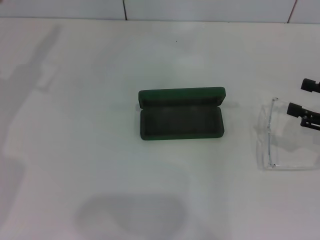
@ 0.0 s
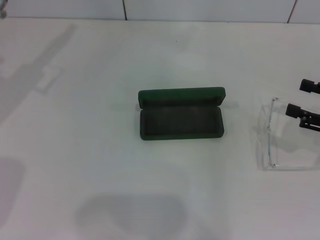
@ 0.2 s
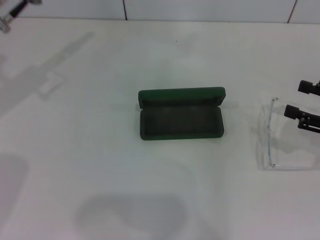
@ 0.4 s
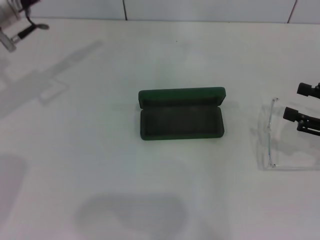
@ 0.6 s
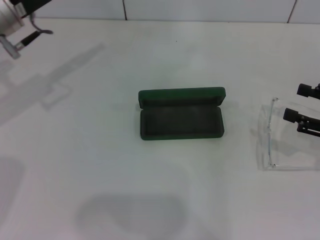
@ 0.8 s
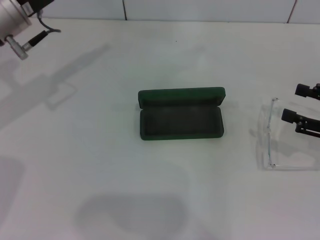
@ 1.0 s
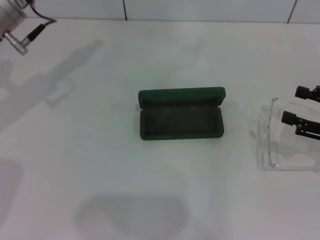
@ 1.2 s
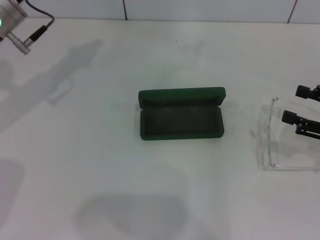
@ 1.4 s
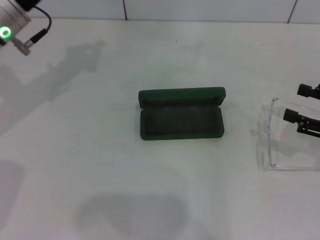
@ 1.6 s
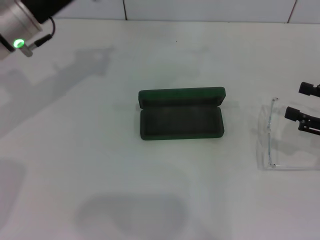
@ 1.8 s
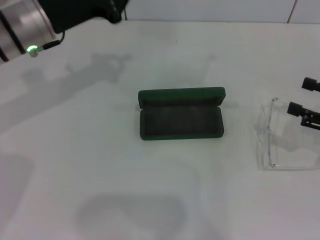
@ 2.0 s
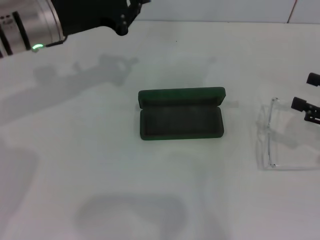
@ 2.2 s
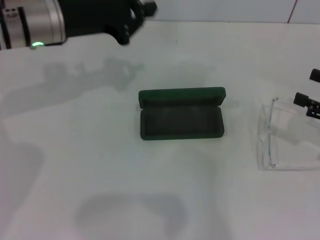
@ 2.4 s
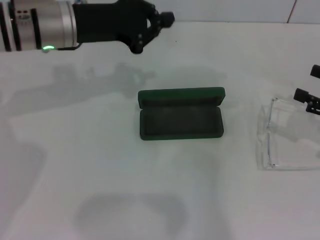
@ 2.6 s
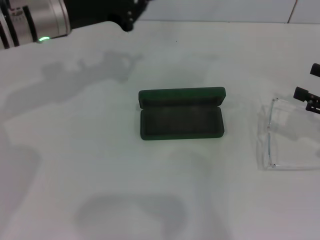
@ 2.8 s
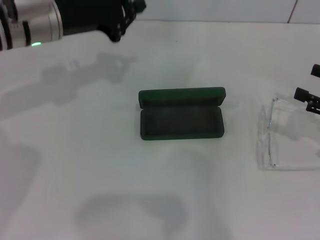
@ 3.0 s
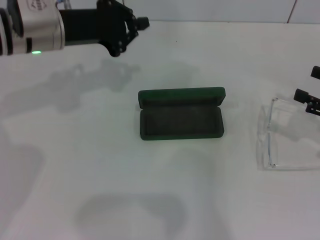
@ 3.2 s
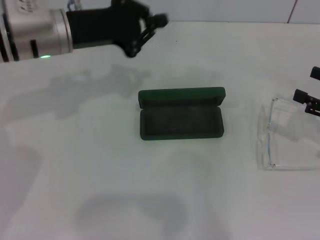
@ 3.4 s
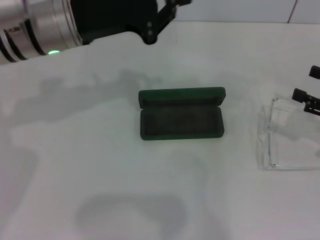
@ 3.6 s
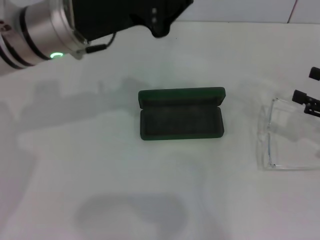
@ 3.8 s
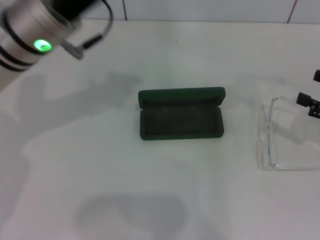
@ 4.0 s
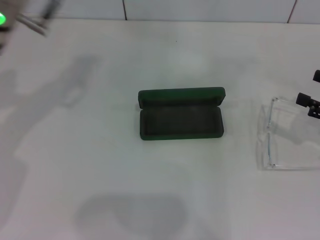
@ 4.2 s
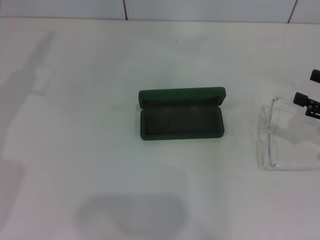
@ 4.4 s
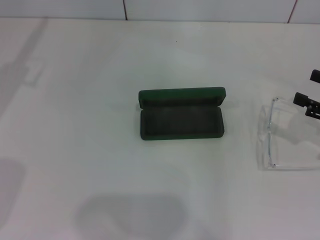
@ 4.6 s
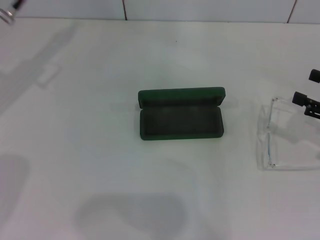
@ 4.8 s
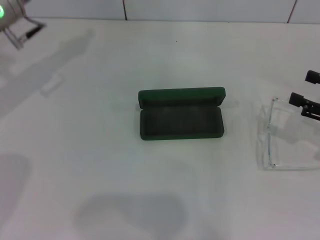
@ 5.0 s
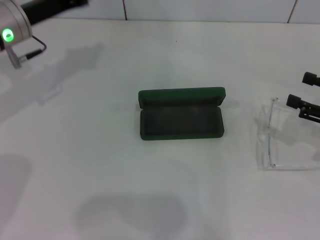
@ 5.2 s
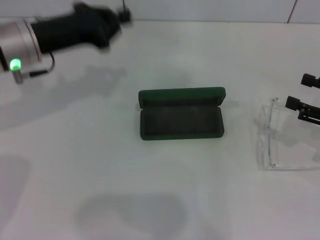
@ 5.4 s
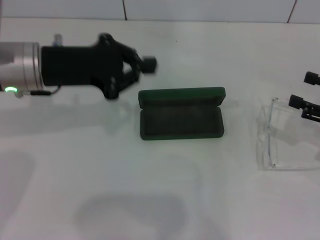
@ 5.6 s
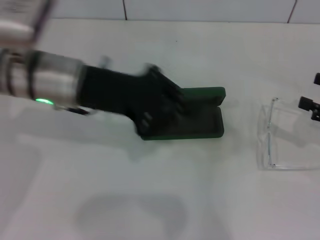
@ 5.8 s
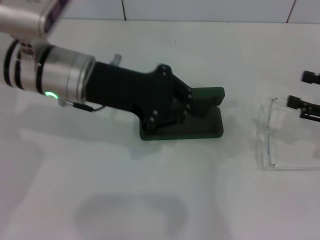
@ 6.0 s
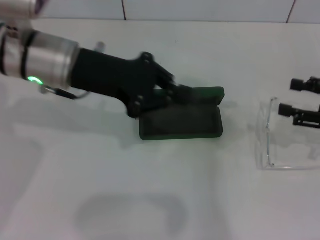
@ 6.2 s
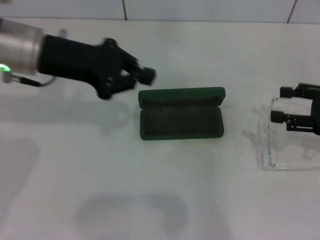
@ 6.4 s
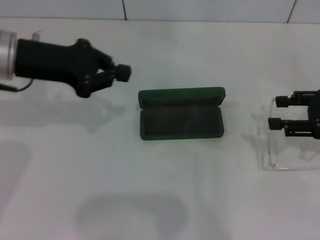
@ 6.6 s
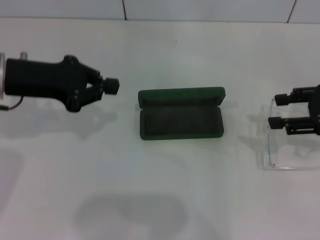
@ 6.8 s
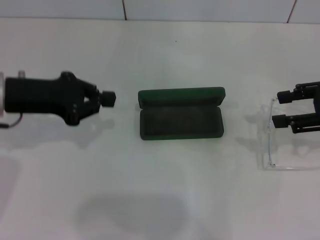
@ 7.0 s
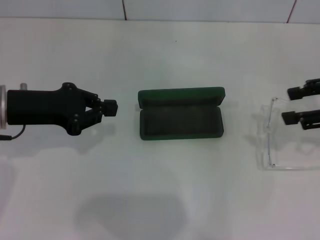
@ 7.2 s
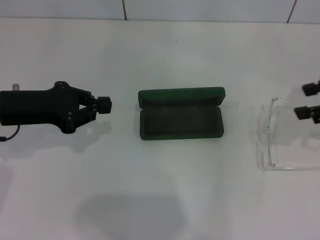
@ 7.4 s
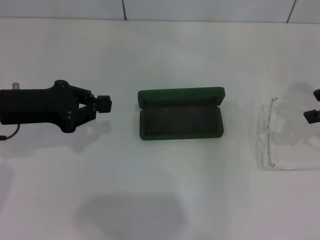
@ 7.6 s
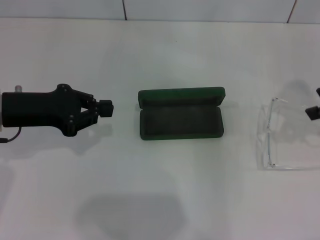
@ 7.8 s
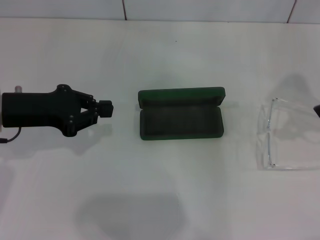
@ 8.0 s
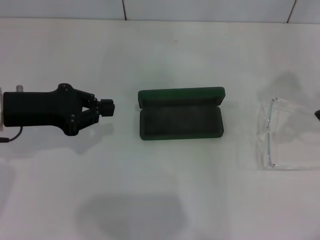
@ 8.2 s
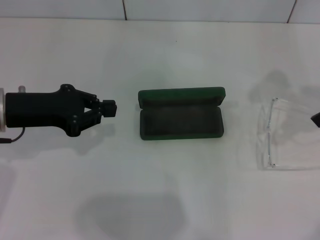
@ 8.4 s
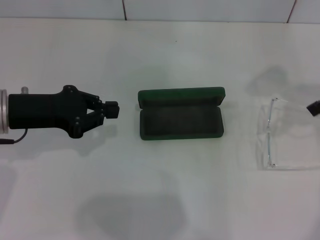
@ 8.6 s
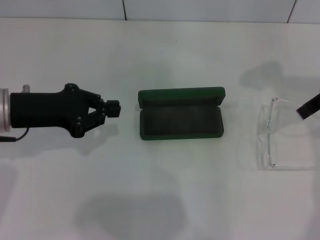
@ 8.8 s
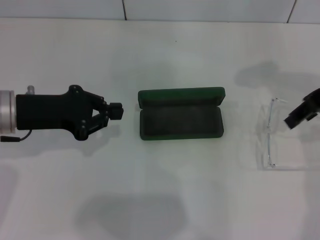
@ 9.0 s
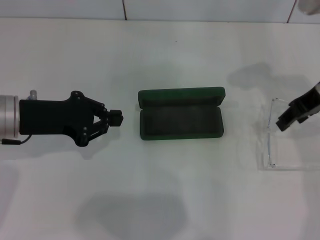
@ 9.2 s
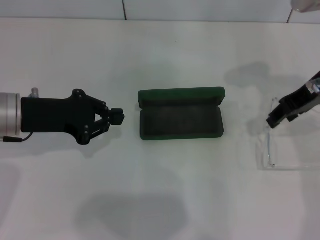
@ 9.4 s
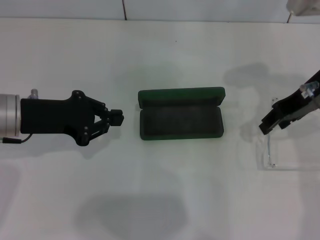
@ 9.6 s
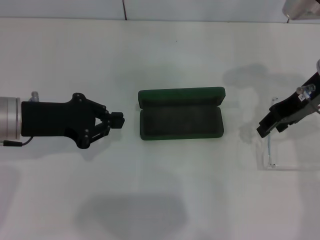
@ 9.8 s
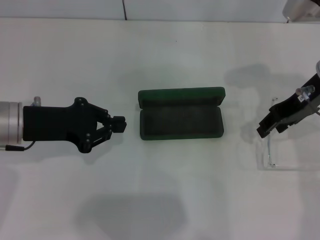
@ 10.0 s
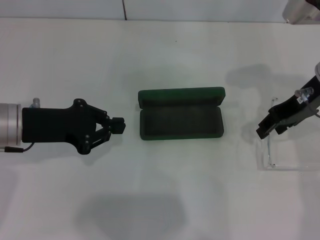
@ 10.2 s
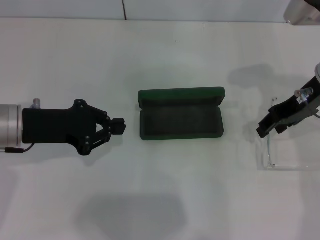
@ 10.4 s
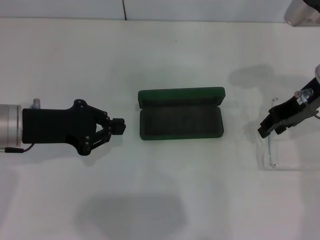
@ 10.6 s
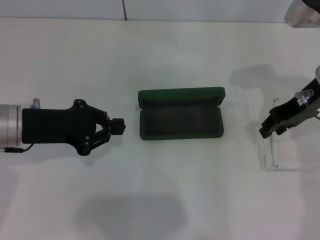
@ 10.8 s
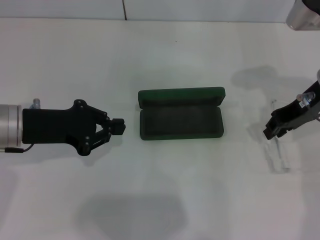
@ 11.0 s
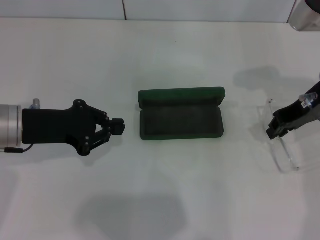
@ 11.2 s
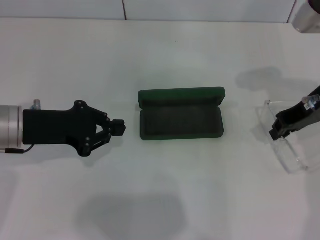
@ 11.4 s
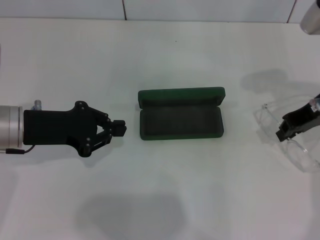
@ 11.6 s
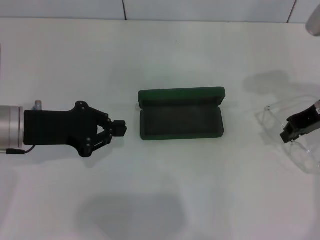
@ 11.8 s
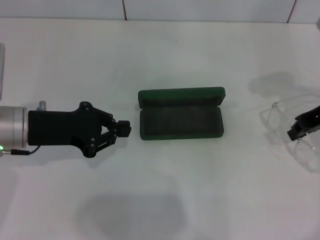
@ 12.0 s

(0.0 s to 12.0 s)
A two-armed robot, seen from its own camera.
Step, 0.0 s - 11.6 s: Grab the eyeglass frame with your right hand.
3.0 s - 4.4 s: The left gripper moves roughly 5 cm.
4.4 s - 6.0 s: The left gripper heads to the right, covering roughly 10 cm.
6.0 s - 7.6 s: The right gripper goes approximately 10 cm upward. The left gripper goes approximately 10 cm to the left.
7.6 s - 9.0 s: The right gripper moves to the left, roughly 10 cm.
9.0 s - 10.4 s: The right gripper is displaced downward by roughly 5 cm.
10.4 s - 12.0 s: The right gripper closes.

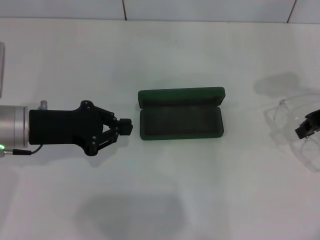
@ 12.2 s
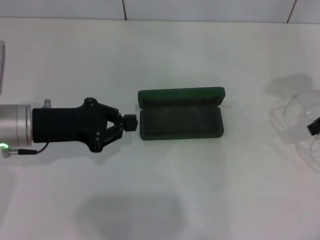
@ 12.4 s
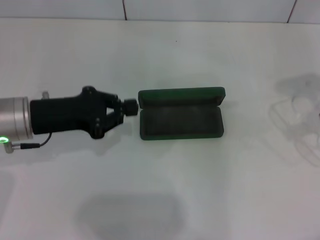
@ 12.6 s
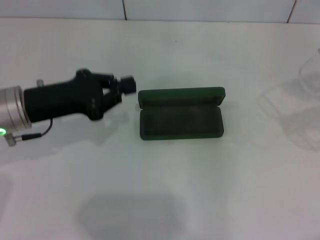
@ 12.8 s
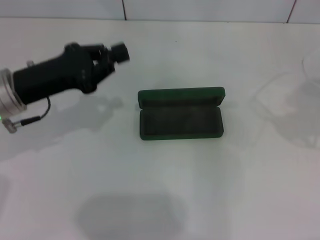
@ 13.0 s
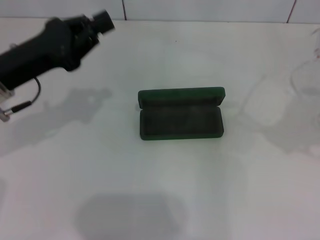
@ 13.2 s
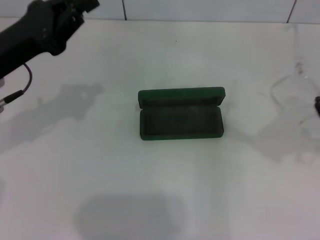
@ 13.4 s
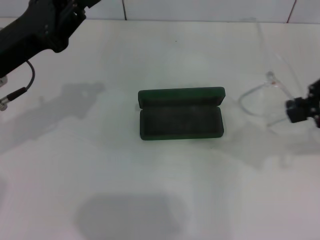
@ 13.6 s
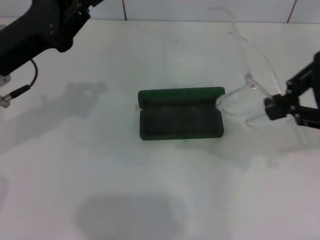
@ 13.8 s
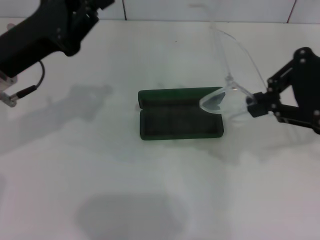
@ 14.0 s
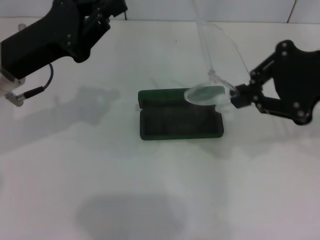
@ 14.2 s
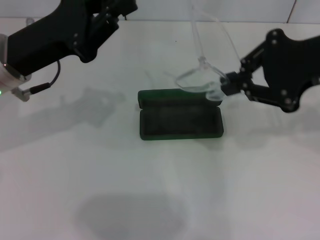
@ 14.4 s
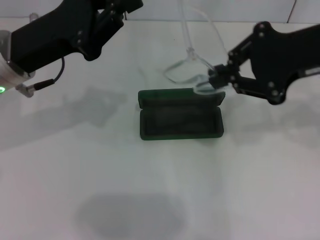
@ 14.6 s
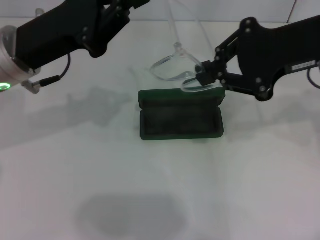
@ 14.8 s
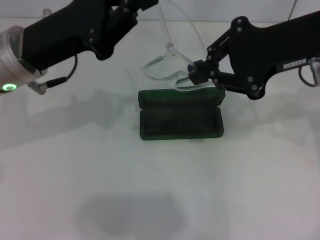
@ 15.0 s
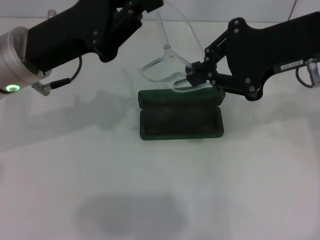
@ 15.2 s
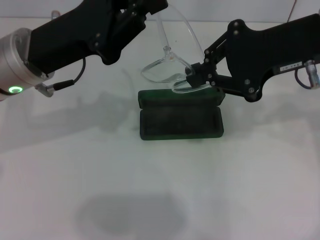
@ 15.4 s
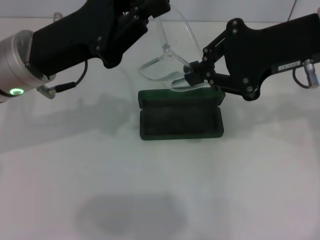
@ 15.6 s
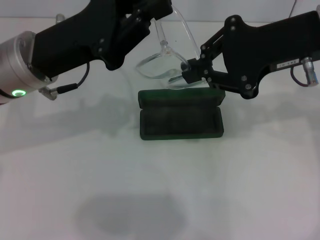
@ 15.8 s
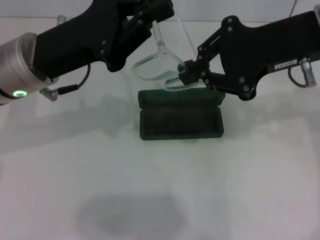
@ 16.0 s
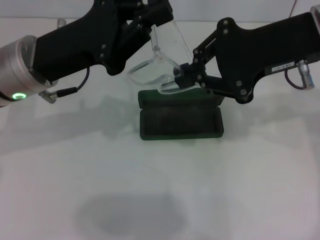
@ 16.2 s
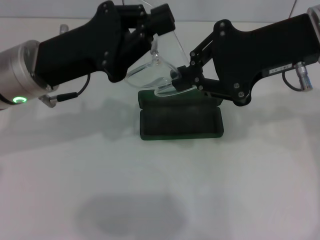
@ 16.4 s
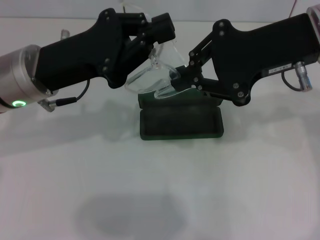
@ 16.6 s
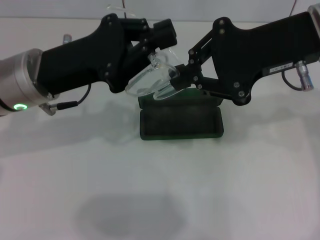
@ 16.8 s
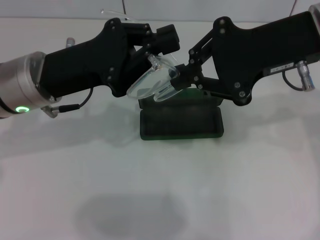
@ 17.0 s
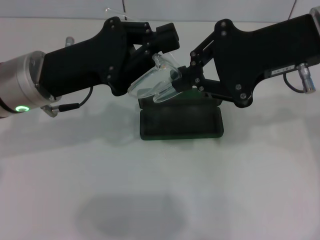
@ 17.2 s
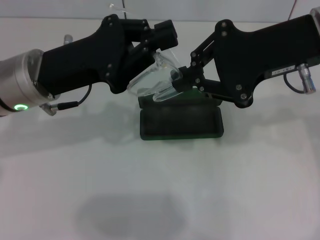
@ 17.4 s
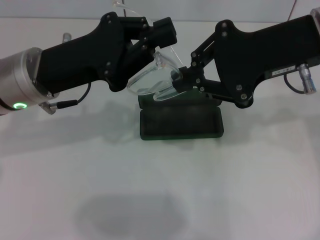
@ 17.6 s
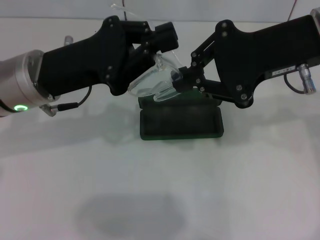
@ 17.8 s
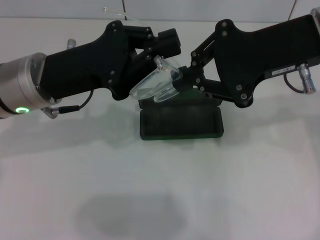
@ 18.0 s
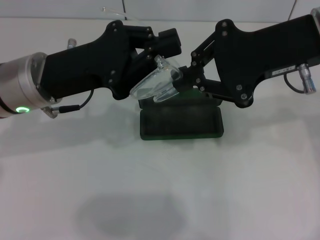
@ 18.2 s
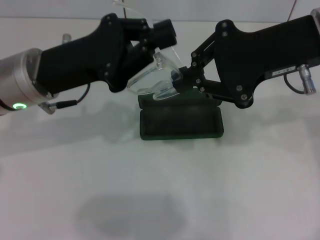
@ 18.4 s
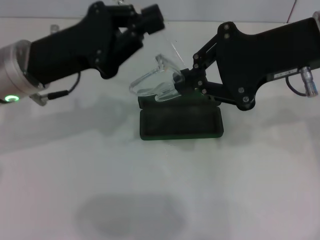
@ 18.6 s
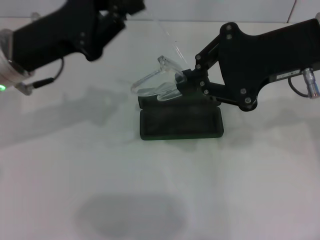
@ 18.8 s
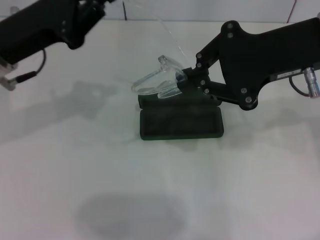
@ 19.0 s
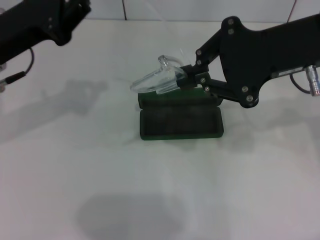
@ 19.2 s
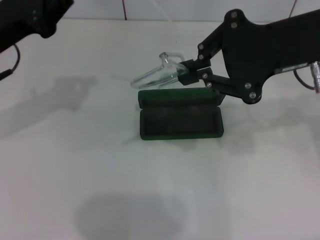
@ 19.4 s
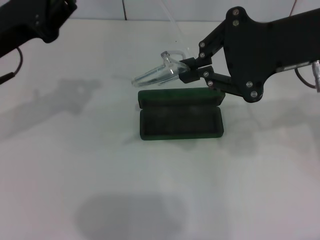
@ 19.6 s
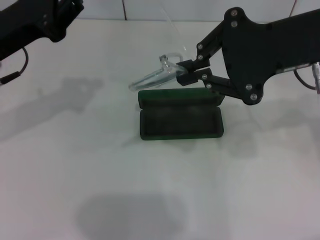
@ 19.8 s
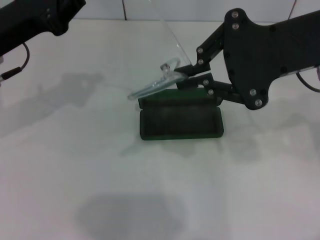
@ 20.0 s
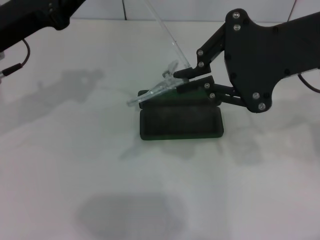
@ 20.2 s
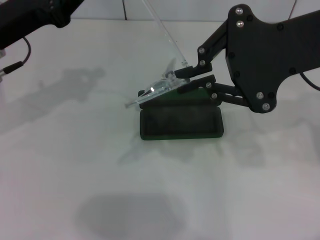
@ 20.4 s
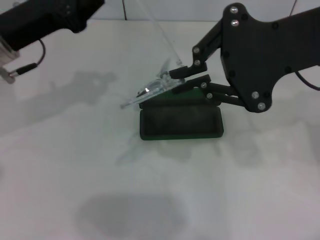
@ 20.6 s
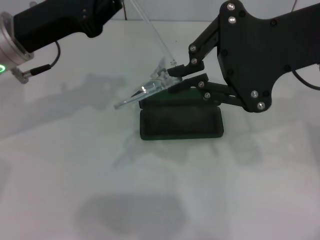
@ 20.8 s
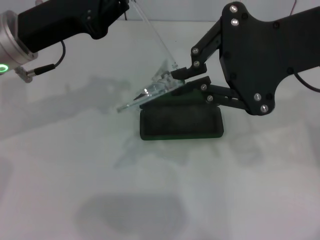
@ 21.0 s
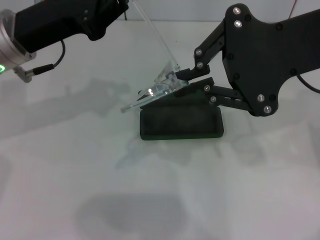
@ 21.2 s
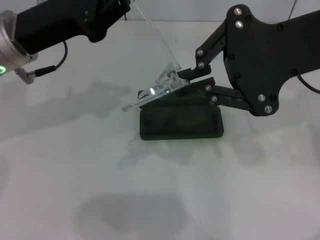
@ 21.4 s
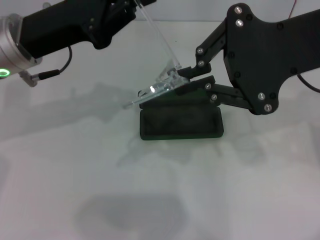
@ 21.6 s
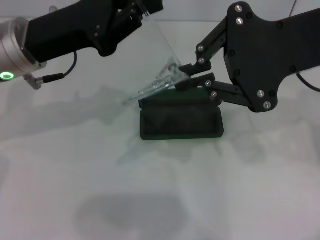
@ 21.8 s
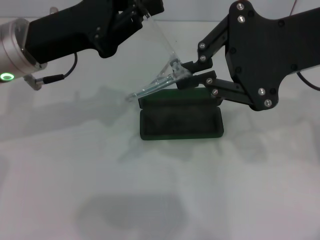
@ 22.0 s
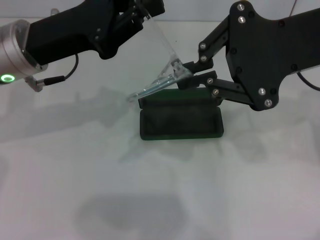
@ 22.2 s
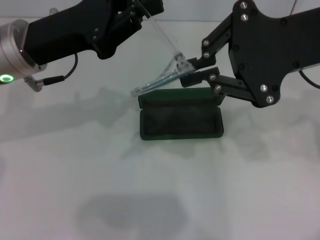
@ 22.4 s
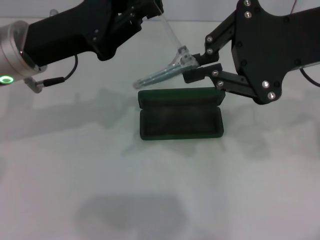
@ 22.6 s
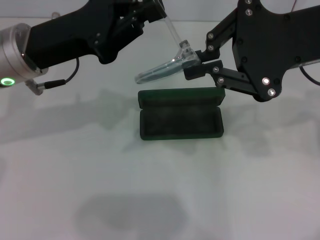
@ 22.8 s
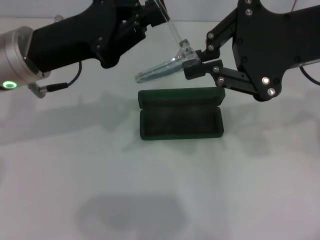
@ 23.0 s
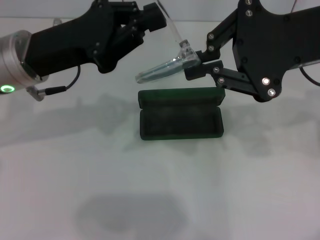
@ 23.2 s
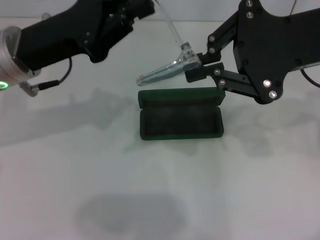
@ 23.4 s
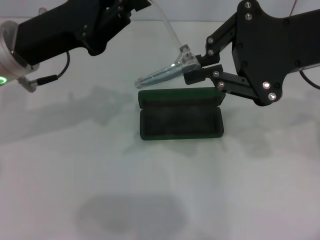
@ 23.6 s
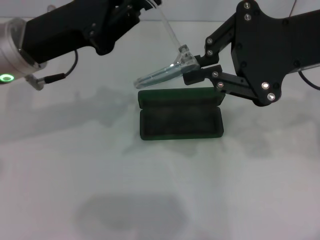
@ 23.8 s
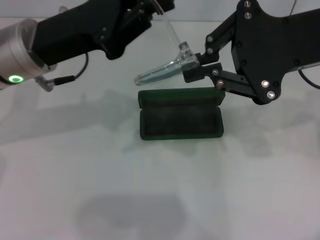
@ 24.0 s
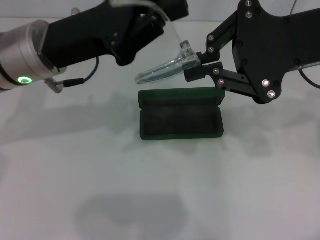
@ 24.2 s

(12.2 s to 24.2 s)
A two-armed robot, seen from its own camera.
12.2 s - 13.8 s: The left gripper moves upward, approximately 5 cm, while the right gripper moves upward and backward, approximately 10 cm.
13.8 s - 15.2 s: The left gripper goes roughly 5 cm to the right, while the right gripper is displaced to the left and forward by about 10 cm.
15.2 s - 16.6 s: The grippers stay close to where they were, moving slightly.
16.6 s - 18.2 s: The two grippers keep their place.
18.2 s - 19.8 s: The left gripper is displaced to the left by some 5 cm.
19.8 s - 22.6 s: There are only small adjustments of the grippers.
22.6 s - 24.2 s: The grippers stay close to where they were, moving slightly.
